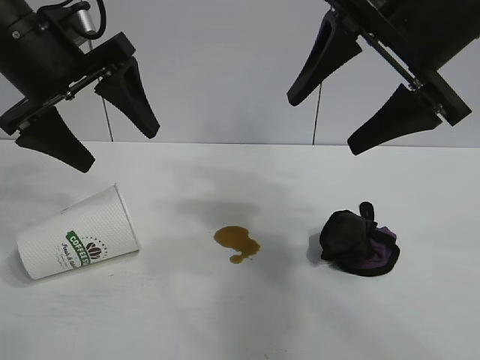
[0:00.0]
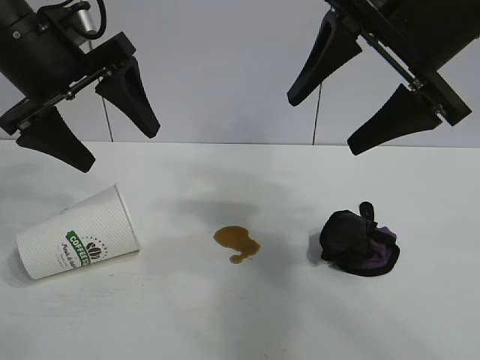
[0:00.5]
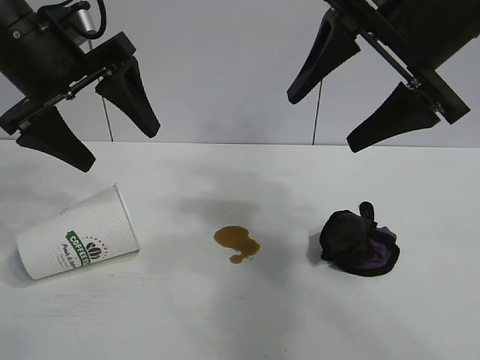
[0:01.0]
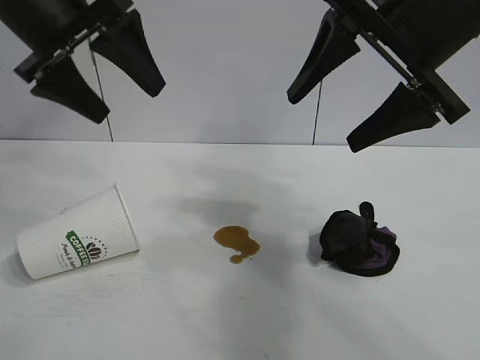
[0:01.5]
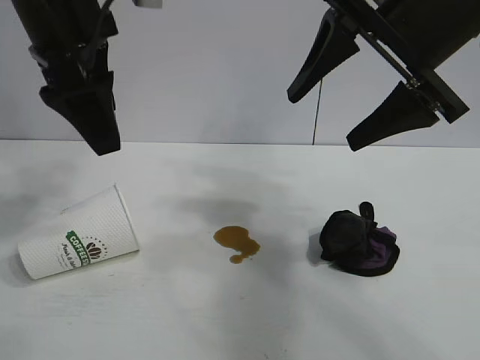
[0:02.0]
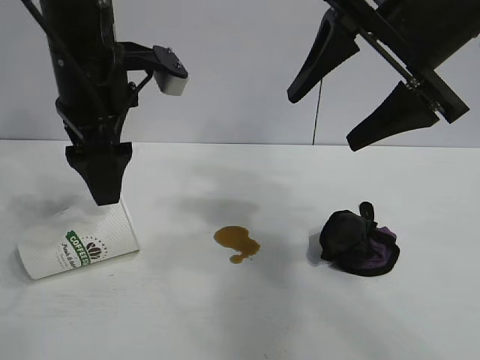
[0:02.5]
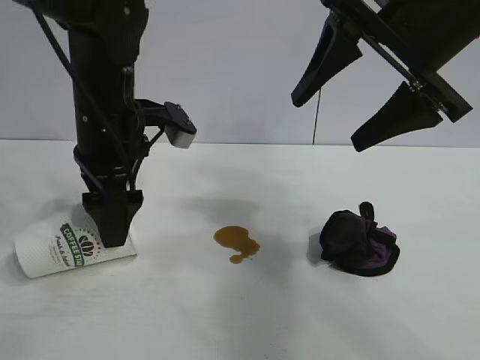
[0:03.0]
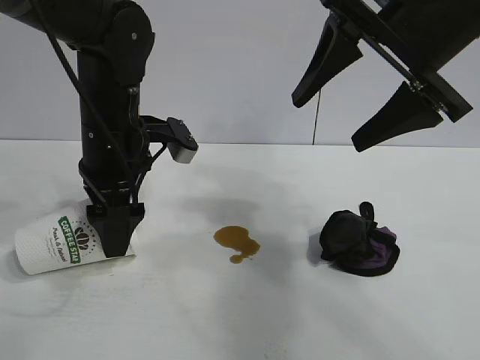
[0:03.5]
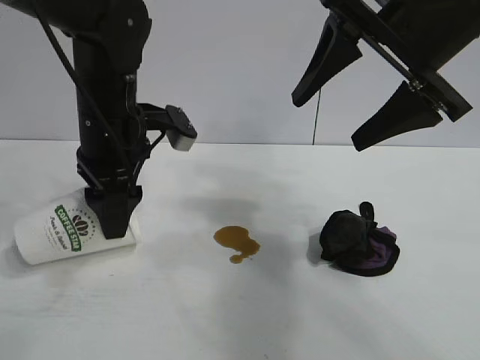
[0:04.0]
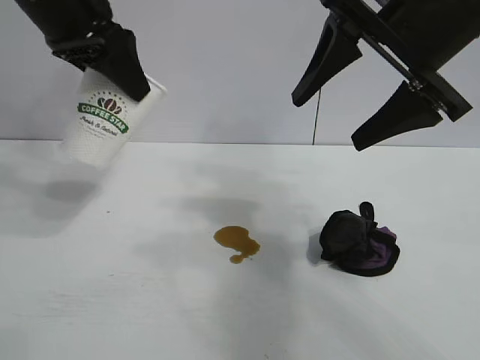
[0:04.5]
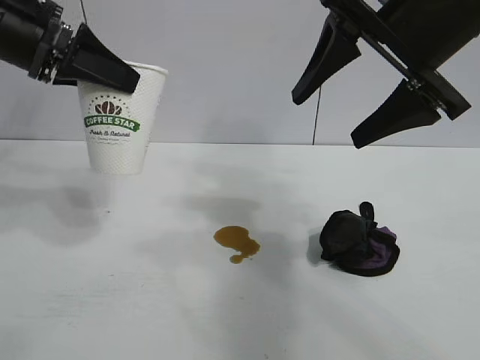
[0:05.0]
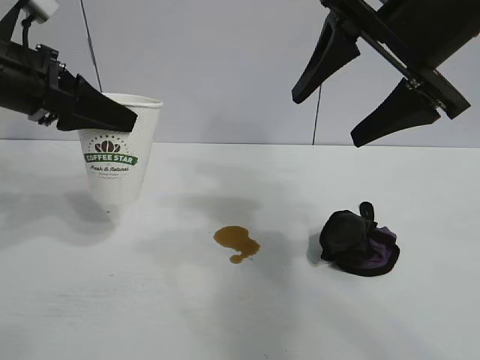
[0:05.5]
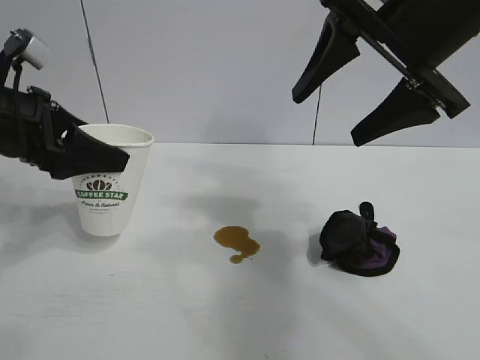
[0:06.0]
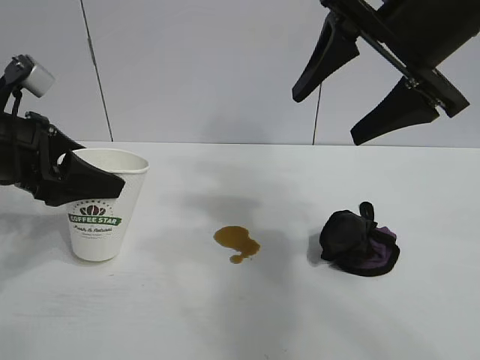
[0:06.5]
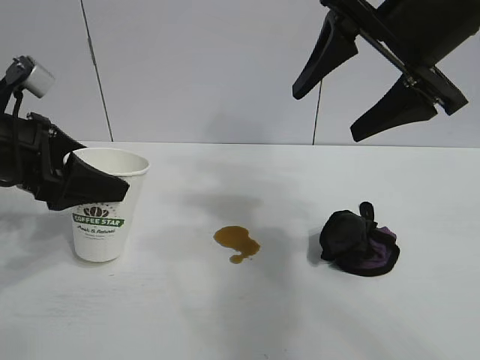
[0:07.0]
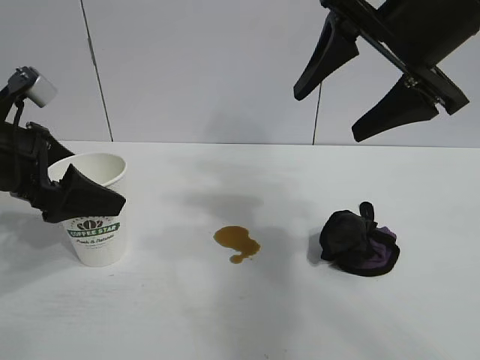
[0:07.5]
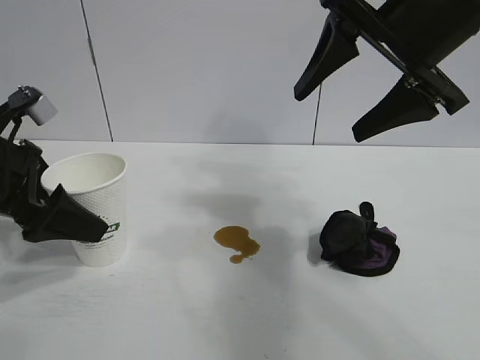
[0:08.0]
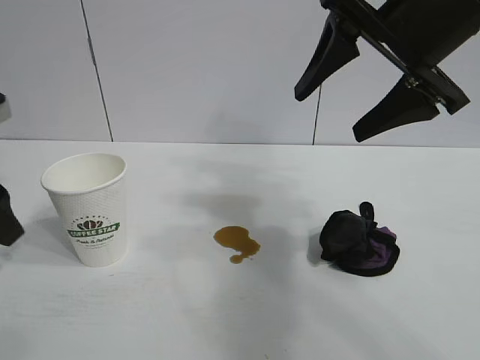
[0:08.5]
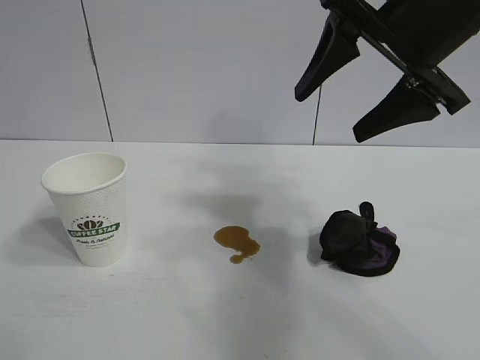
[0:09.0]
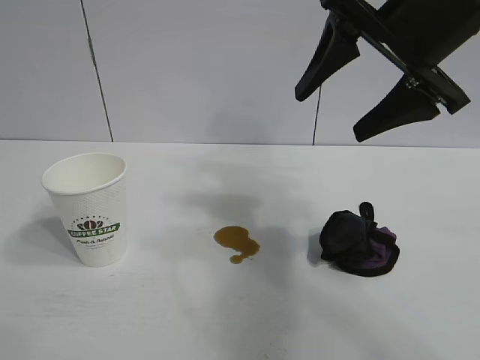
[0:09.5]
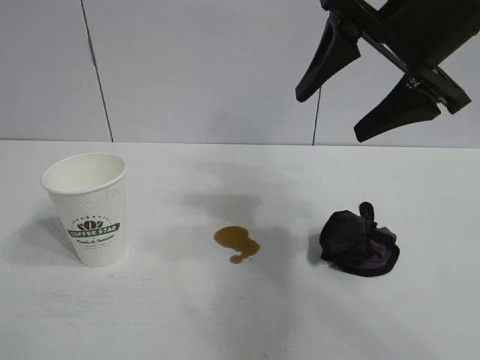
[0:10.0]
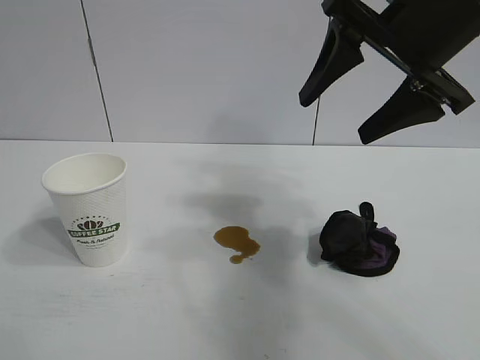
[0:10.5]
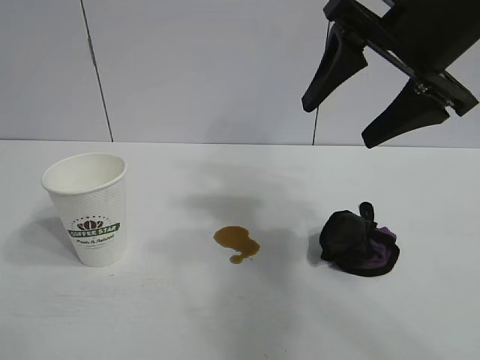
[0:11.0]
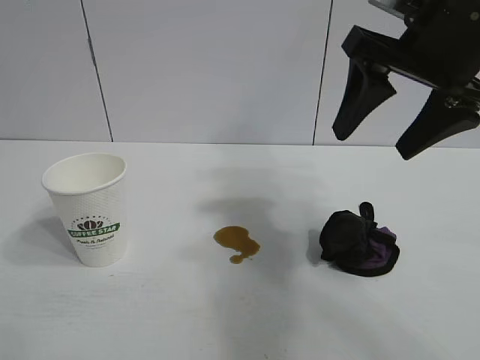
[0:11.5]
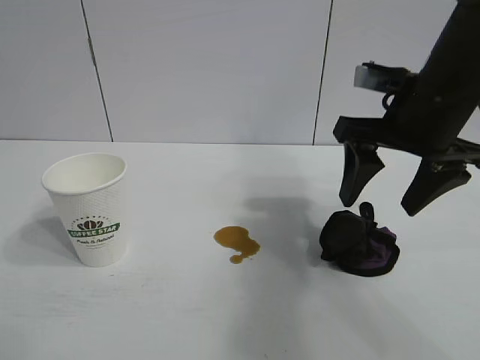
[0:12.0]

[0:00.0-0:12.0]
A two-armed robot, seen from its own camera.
Task of the whole recording: the left gripper pick up the fallen cup and place it upright, the right gripper grasp the black rag and wipe the stain on the table, the right gripper put the black rag back in its original position.
Step, 0:01.0 to 0:03.5: Grasp the paper cup with left gripper.
Step, 0:04.0 to 0:07.0: Stand the paper cup upright with left gripper.

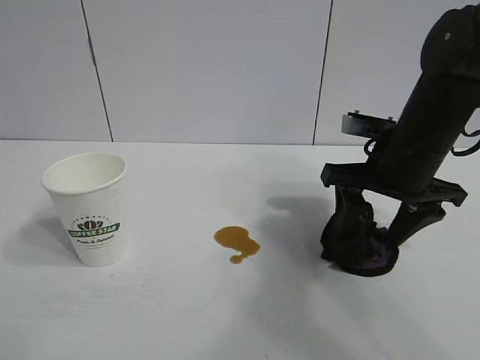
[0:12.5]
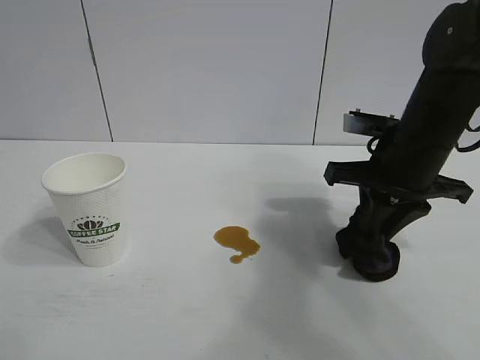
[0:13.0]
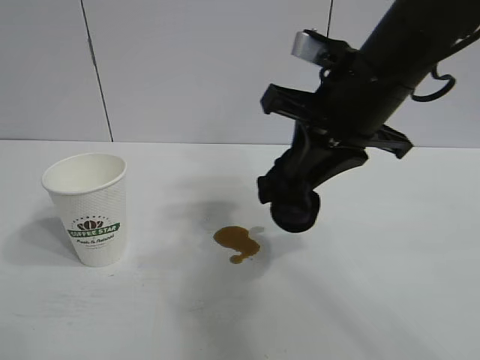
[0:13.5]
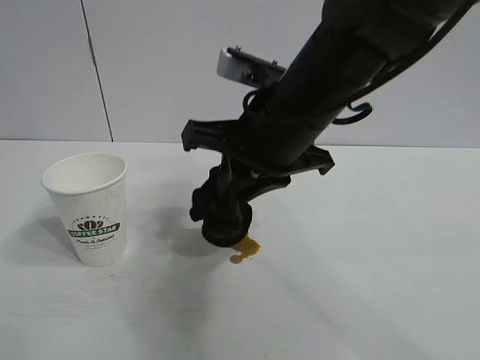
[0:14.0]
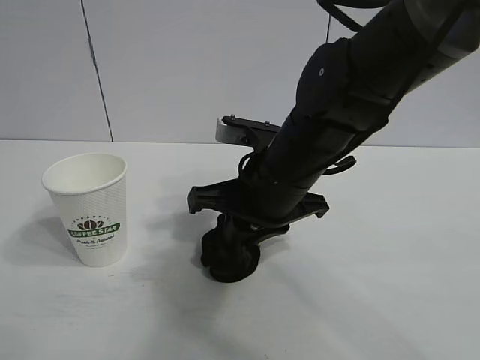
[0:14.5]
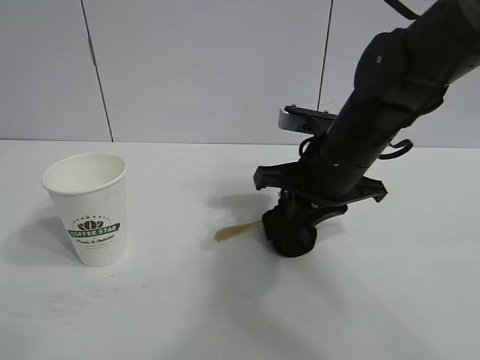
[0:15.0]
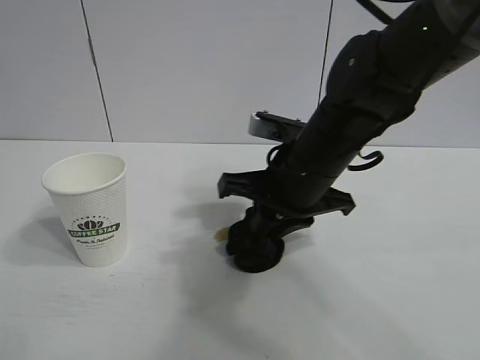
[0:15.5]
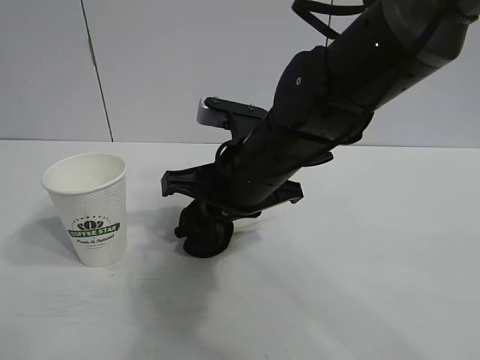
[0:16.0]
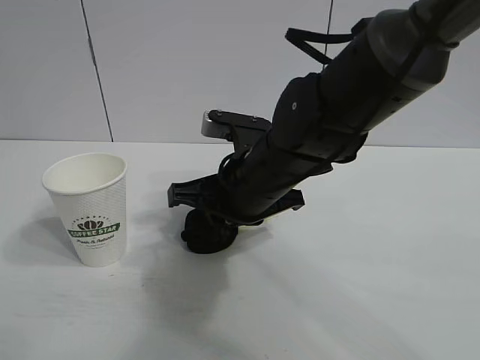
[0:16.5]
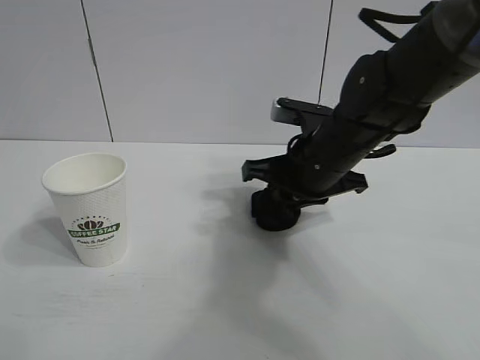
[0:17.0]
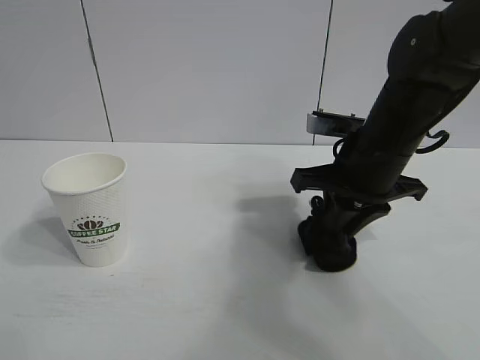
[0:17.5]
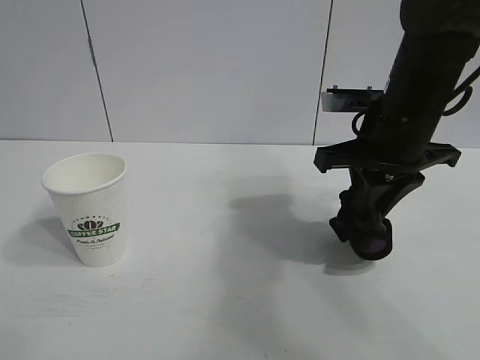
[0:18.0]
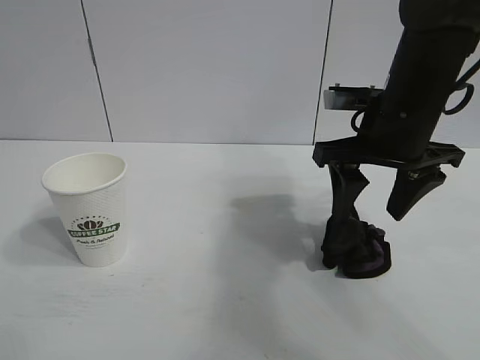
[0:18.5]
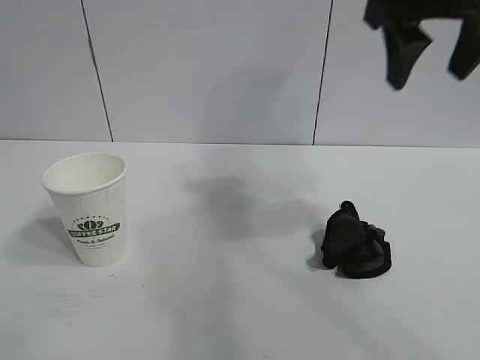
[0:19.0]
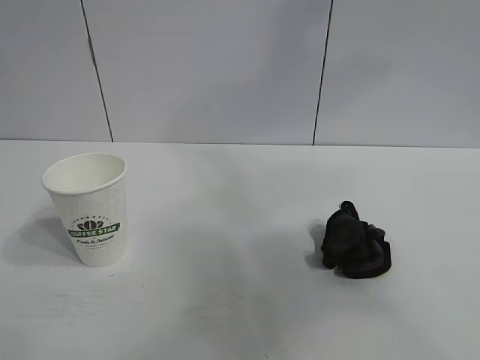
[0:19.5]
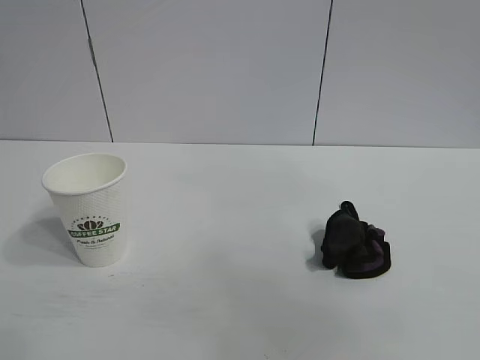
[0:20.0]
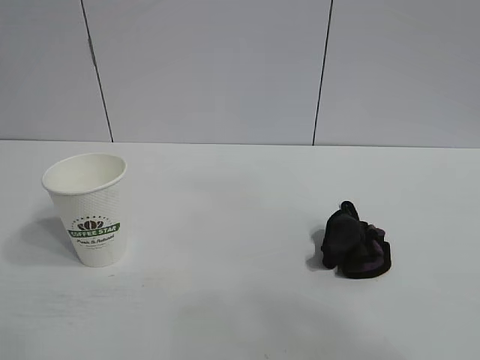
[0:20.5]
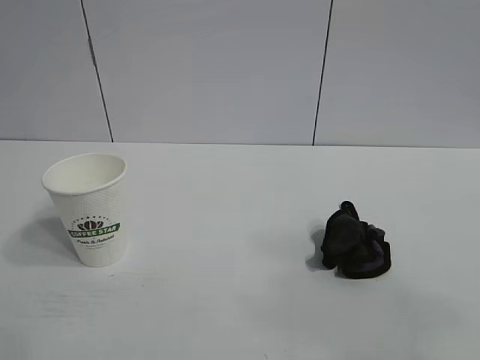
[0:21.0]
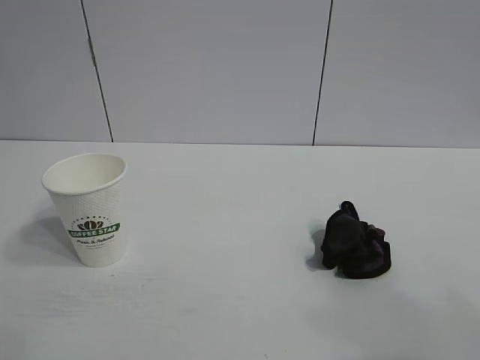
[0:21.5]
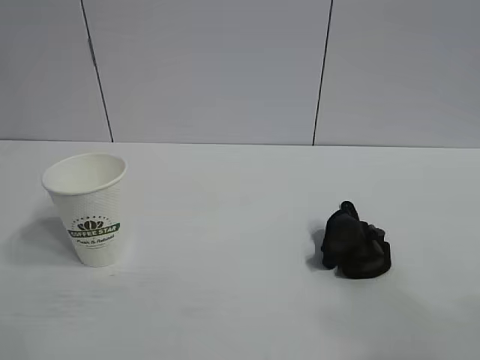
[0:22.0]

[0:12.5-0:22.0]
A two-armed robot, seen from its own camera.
Task of the whole recording: the left gripper pick up the fallen cup and place it upright, the right gripper grasp the black rag and wipe the stain on the table, the right gripper put the black rag back in its original position.
Step, 0:13.0 to 0:17.0: Wipe the stains off the table with the rag with right gripper.
